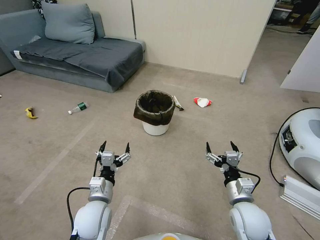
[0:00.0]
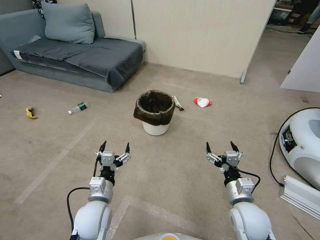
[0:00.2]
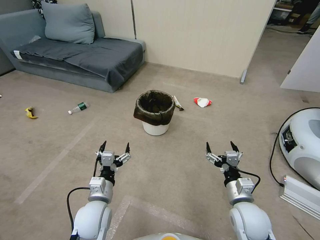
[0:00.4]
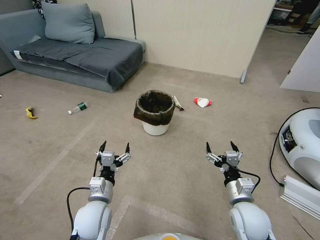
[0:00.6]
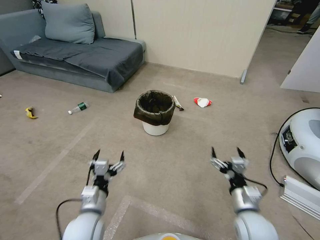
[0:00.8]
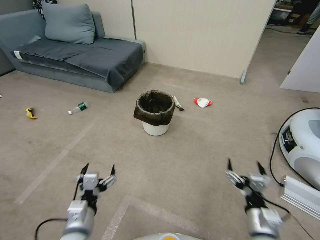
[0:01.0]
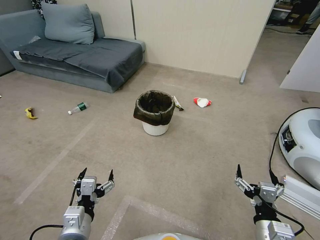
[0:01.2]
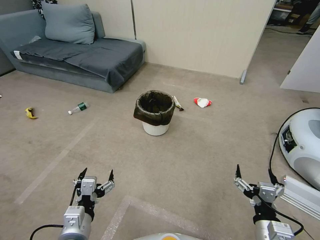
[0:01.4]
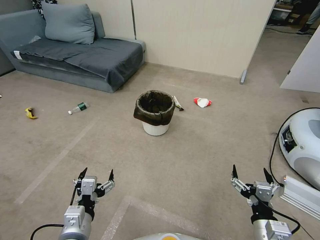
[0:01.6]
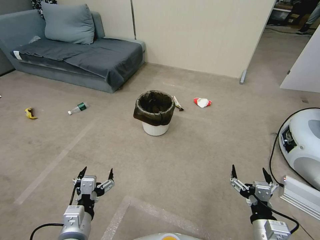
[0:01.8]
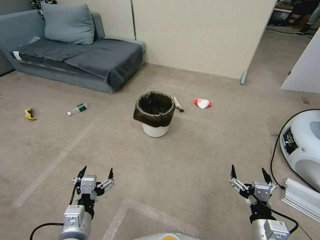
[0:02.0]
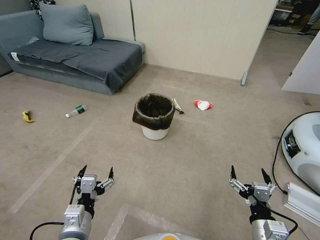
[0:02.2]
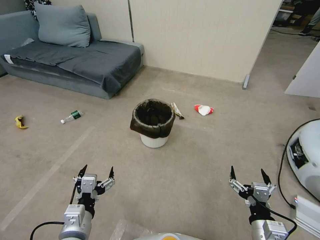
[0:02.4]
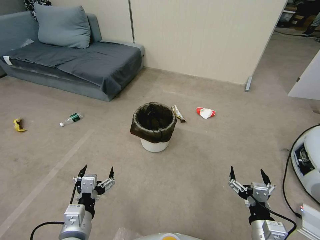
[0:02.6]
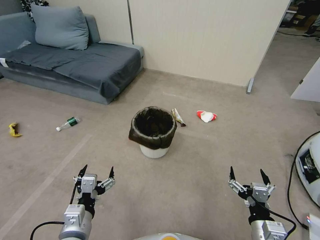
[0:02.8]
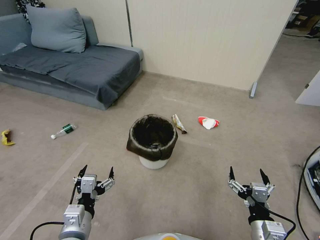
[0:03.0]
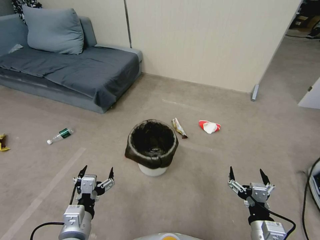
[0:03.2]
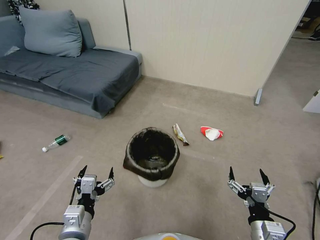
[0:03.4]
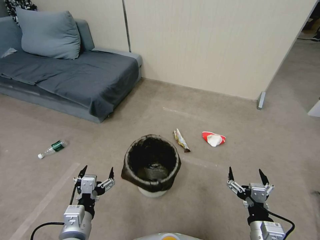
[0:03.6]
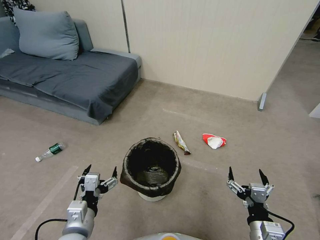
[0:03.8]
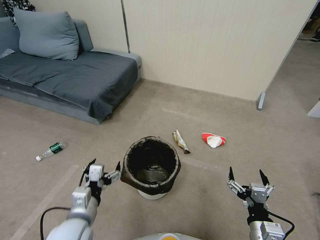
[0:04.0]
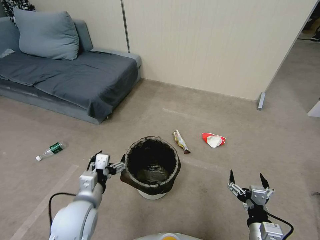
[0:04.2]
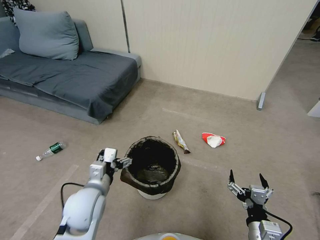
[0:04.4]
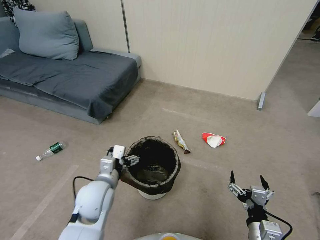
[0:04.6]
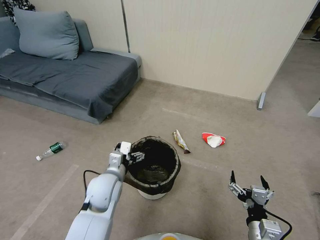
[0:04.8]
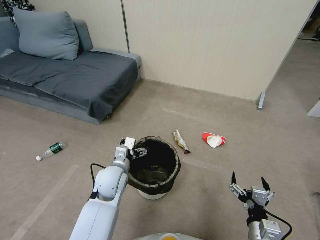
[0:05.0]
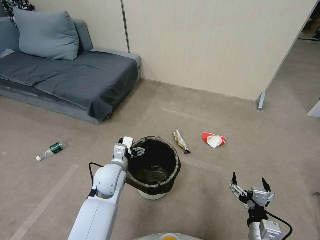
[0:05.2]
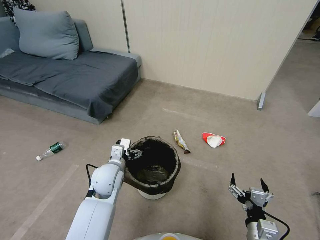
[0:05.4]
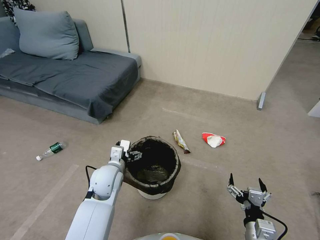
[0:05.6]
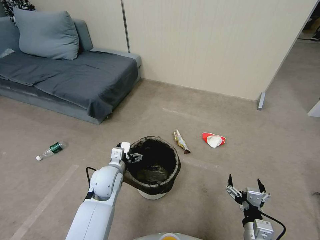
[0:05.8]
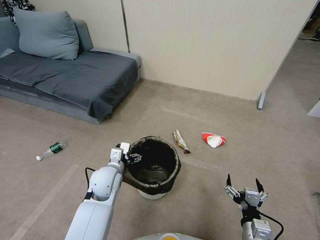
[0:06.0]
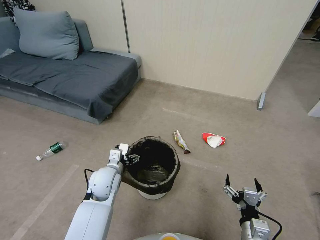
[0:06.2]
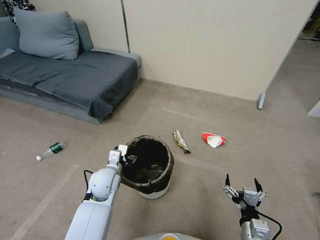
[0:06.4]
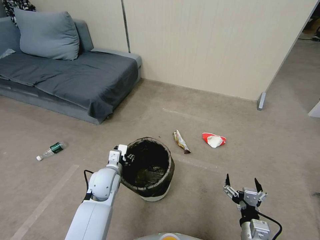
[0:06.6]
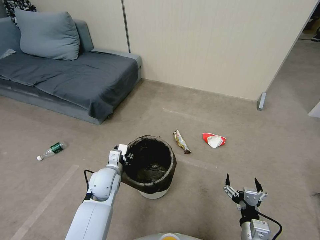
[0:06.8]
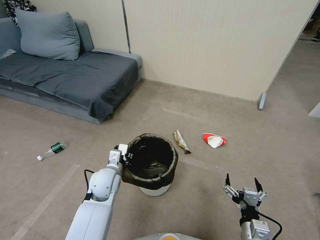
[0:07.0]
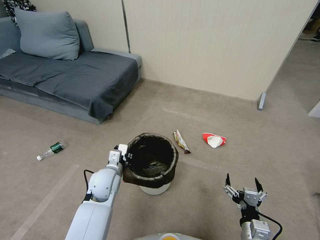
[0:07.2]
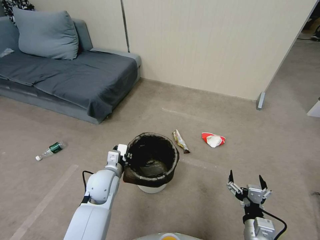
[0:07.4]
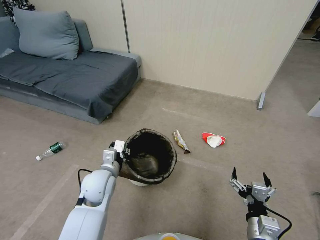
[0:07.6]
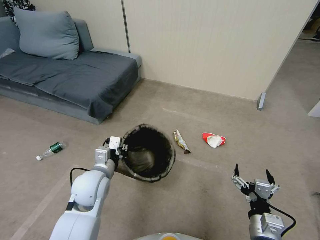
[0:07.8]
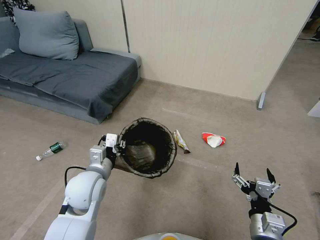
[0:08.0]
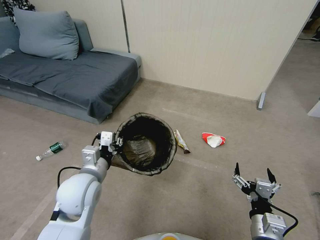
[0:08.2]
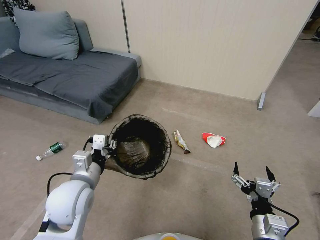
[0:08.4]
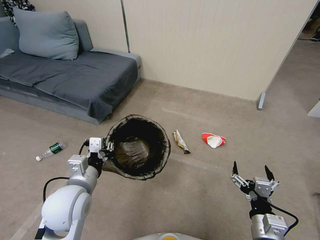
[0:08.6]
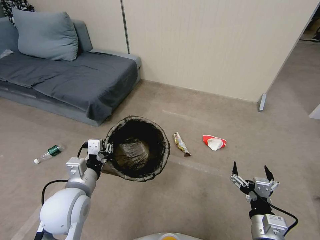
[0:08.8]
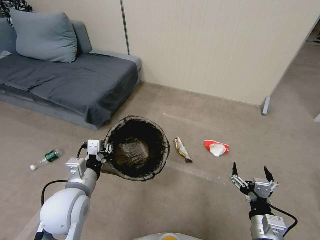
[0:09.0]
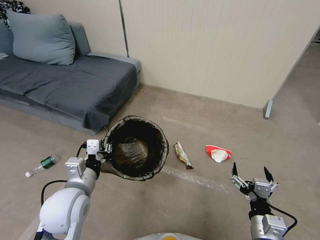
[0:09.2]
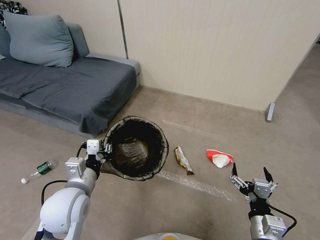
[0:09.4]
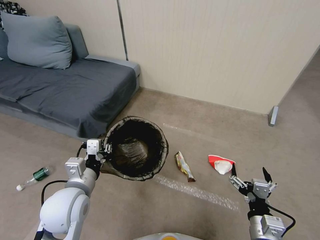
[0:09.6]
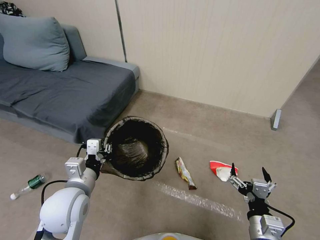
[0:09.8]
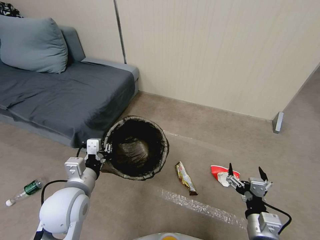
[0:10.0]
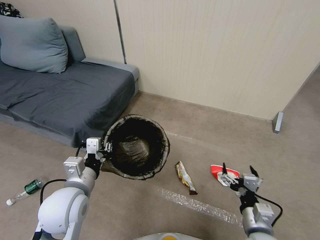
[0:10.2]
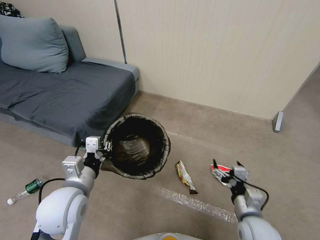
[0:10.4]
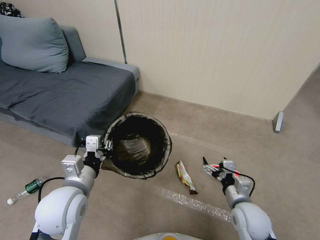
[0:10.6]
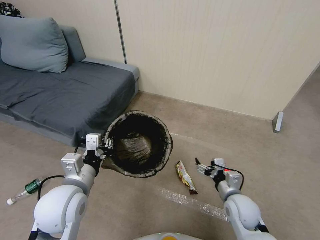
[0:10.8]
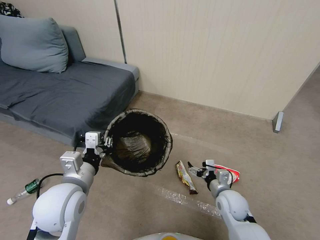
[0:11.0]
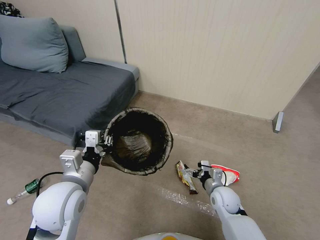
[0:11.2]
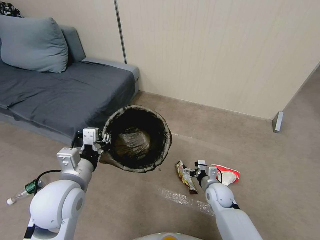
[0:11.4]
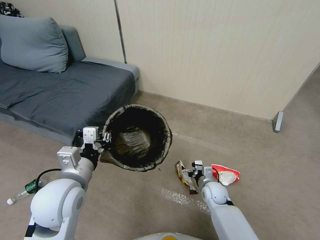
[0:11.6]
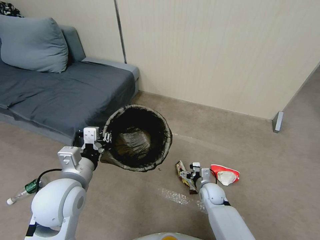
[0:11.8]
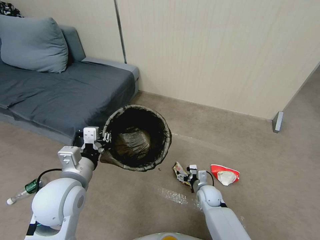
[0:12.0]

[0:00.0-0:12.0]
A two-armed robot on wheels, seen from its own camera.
Task of the whole recording: Pick up the trash bin, then pick up the garbage from the floor and place it into the trash bin.
0:03.0 to 0:04.4: The left gripper travels forward by roughly 10 cm.
0:04.4 to 0:06.0: The left gripper is displaced forward by roughly 10 cm.
0:06.0 to 0:07.6: The left gripper closes its fingers.
0:07.6 to 0:09.0: The left gripper is displaced backward and upward by about 10 cm.
0:09.0 to 0:10.4: The right gripper shifts approximately 5 cm forward.
0:10.4 to 0:12.0: The right gripper travels downward, forward and to the left by some 25 cm.

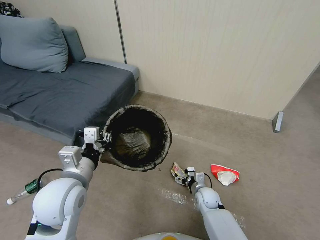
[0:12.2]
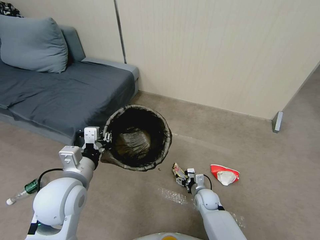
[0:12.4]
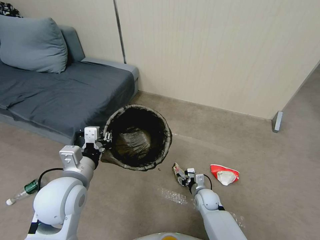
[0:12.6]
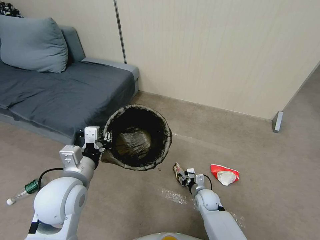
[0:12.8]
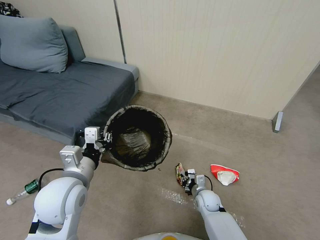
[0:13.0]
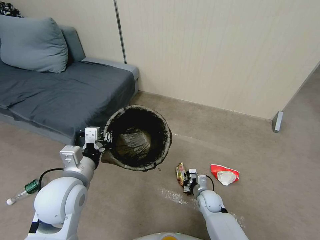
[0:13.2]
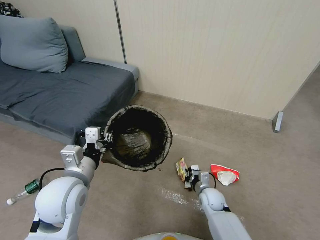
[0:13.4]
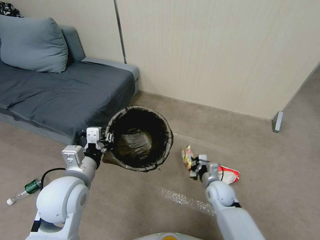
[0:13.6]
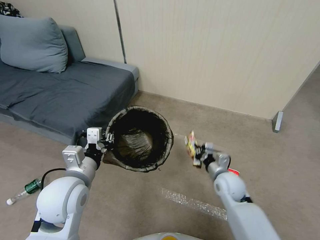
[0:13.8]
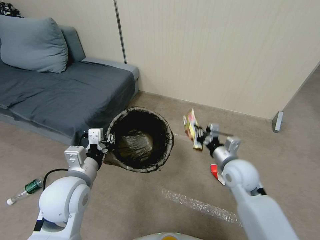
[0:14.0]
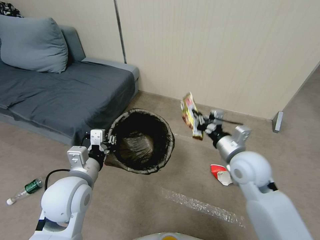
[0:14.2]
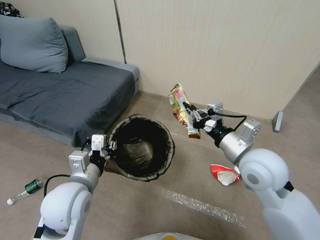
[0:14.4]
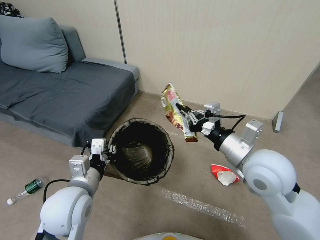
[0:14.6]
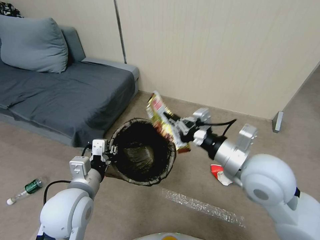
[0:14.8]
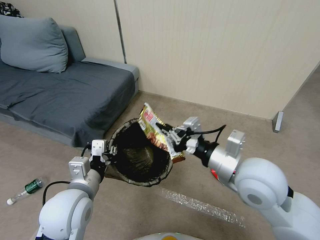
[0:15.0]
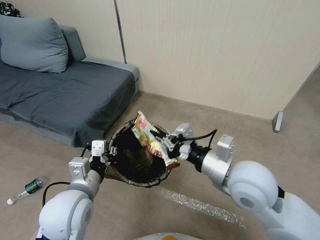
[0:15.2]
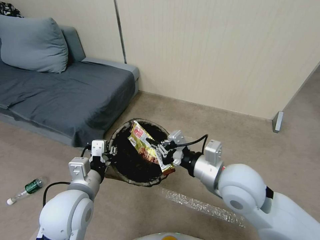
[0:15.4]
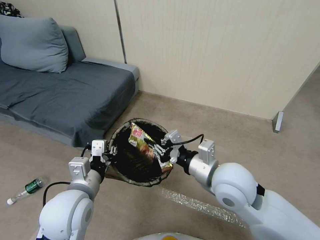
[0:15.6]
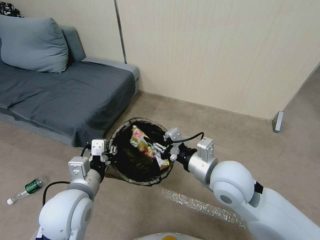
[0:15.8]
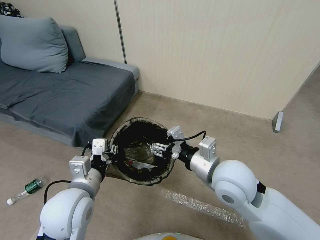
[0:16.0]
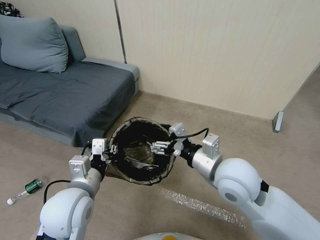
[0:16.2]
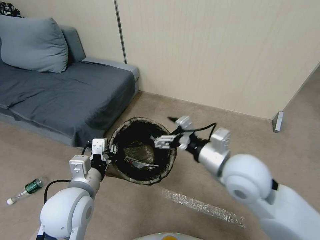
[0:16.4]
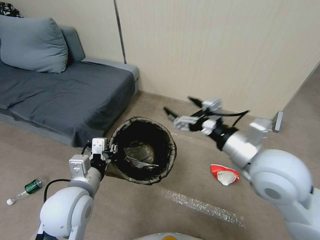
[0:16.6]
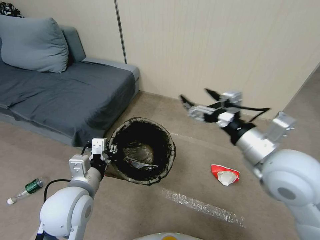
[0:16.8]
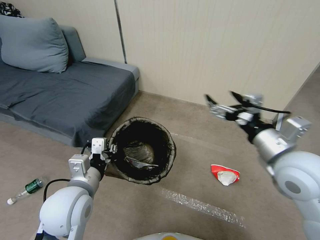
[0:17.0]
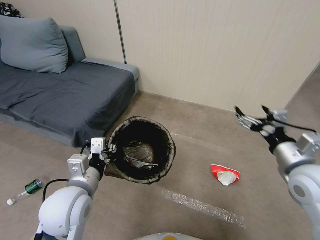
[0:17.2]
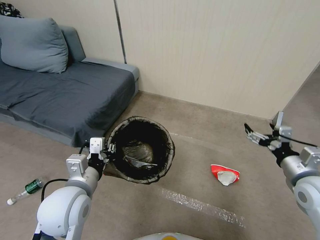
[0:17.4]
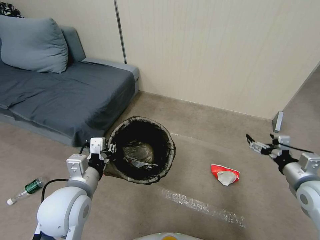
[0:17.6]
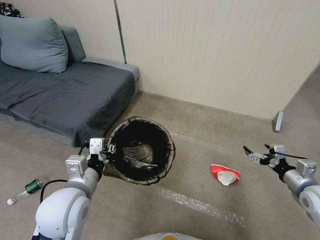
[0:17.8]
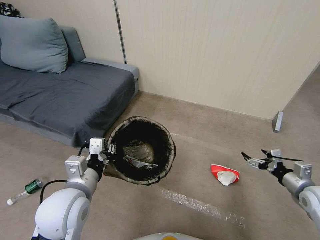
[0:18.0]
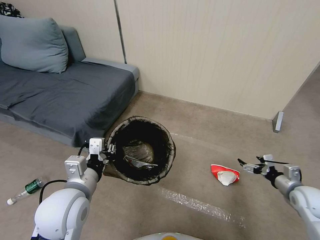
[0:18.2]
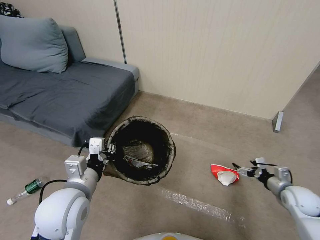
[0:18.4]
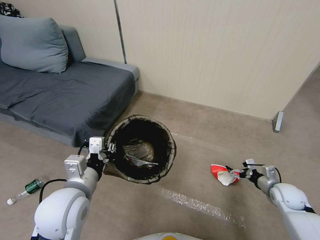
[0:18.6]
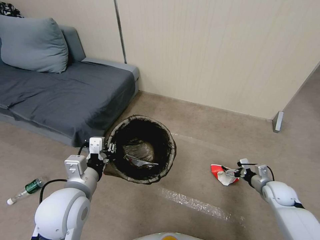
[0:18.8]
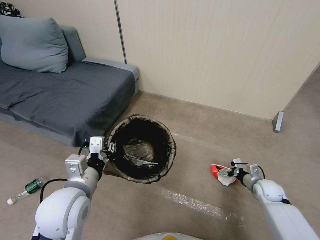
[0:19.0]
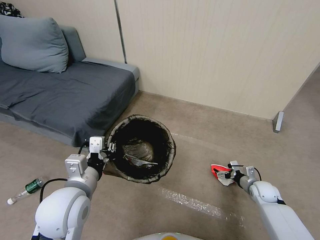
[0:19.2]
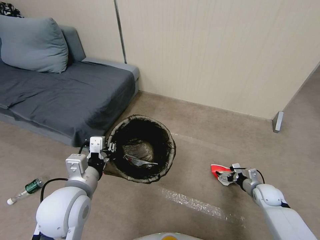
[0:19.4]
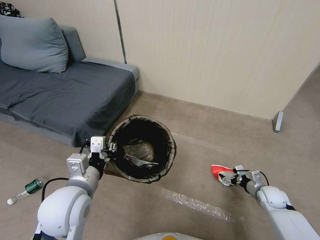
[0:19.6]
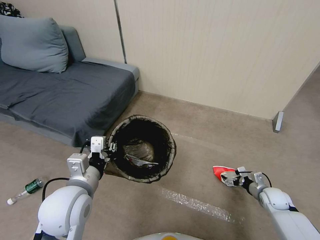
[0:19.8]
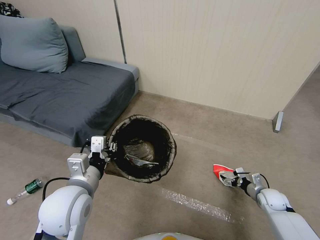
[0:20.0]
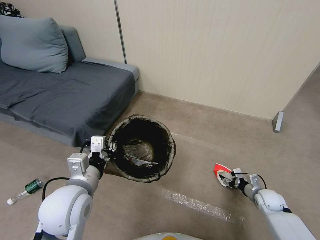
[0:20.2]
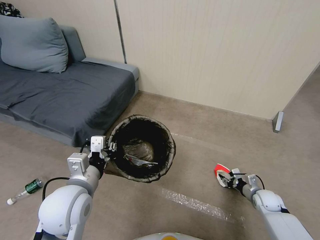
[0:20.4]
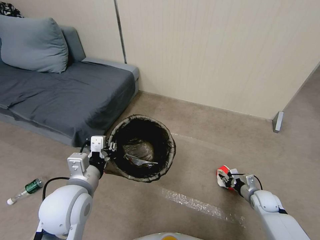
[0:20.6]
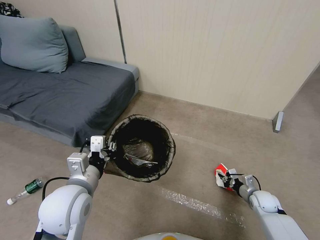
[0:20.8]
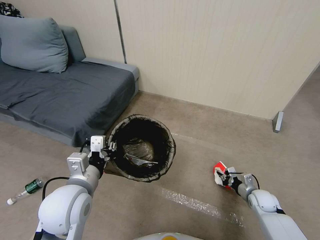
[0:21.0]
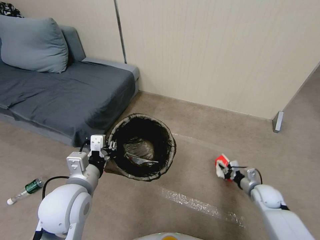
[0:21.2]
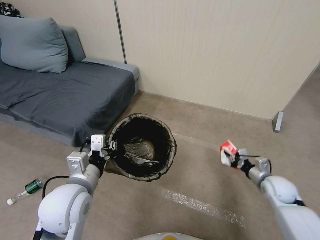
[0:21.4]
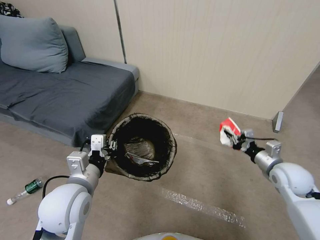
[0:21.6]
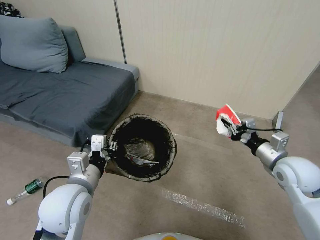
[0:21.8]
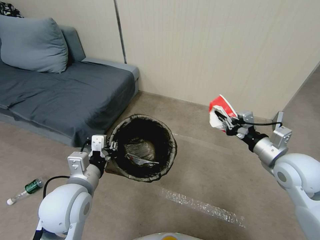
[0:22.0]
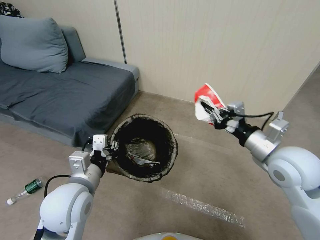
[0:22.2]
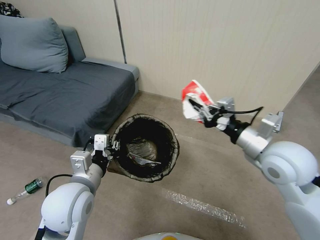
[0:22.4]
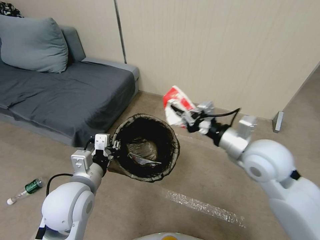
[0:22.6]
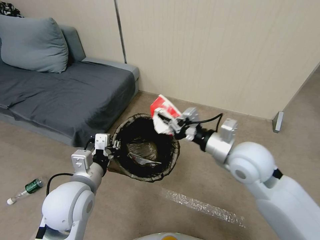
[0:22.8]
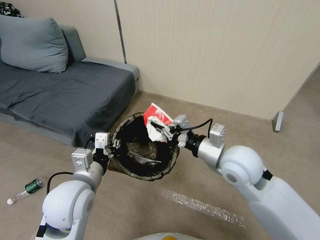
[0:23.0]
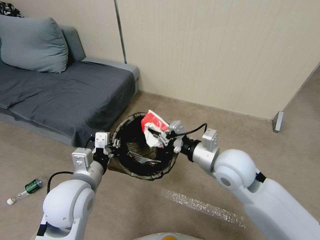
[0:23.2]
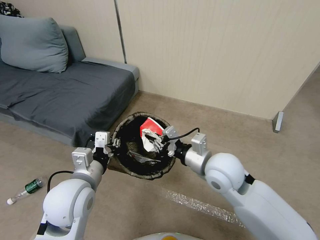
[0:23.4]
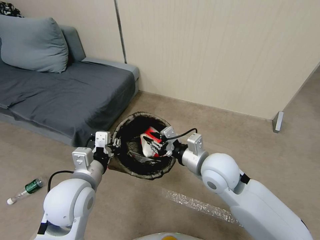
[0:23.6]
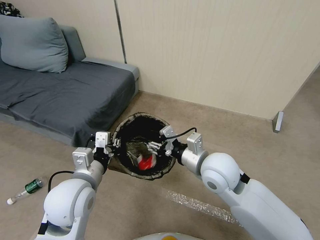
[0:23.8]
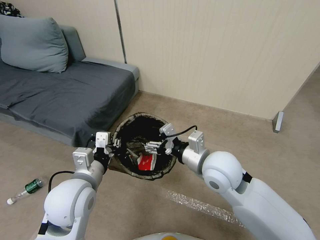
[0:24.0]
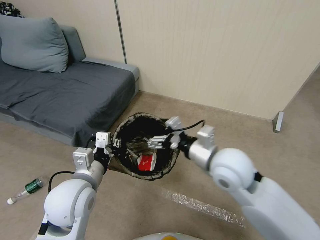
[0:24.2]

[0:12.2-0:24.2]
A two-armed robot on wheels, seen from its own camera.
Task of the whole recording: Pick up the trash bin, then pick up the garbage from the floor and place it into the trash bin.
0:12.2 to 0:13.8: The right gripper is displaced upward by some 15 cm, and closes its fingers.
0:13.8 to 0:15.2: The right gripper heads upward, covering some 25 cm.
0:15.2 to 0:16.6: The right gripper moves roughly 5 cm, and opens.
0:16.6 to 0:18.2: The right gripper moves to the right and downward, some 35 cm.
0:18.2 to 0:19.8: The right gripper goes approximately 10 cm downward.
0:19.8 to 0:21.2: The right gripper closes up.
0:21.2 to 0:22.6: The right gripper shifts about 35 cm upward and to the left.
0:22.6 to 0:24.2: The right gripper shifts about 5 cm to the left, and opens up.
